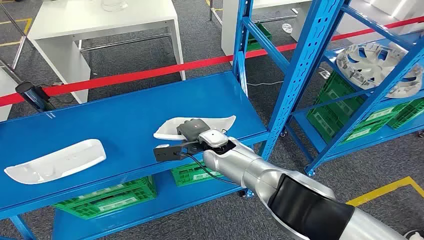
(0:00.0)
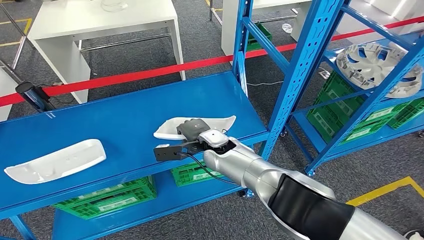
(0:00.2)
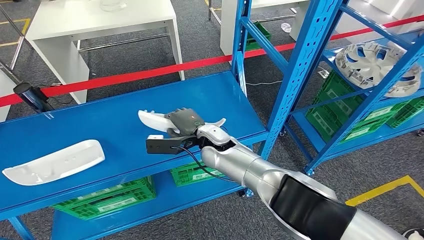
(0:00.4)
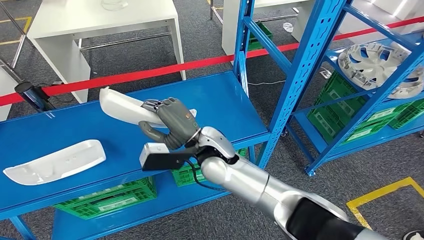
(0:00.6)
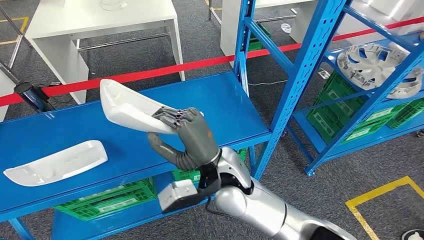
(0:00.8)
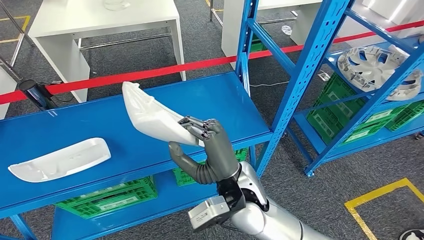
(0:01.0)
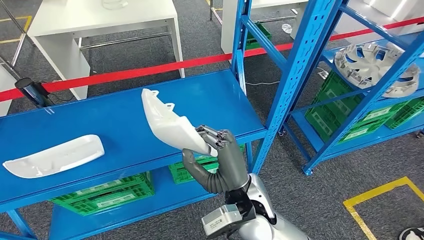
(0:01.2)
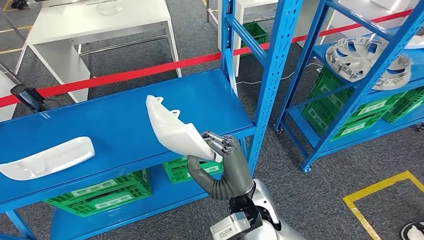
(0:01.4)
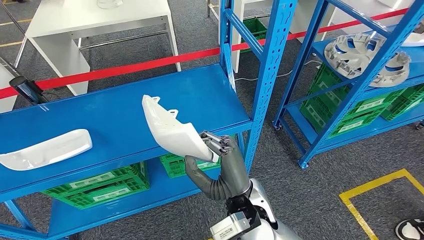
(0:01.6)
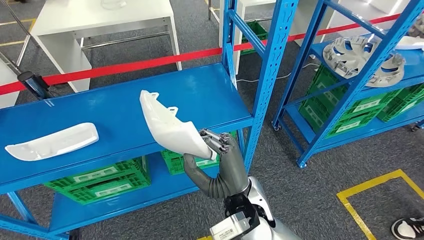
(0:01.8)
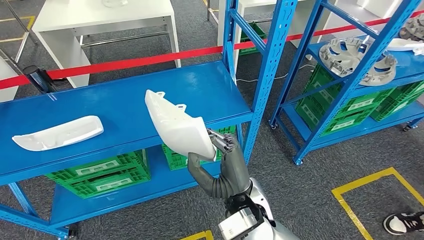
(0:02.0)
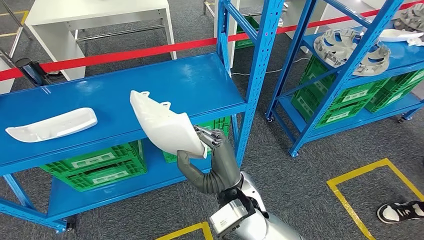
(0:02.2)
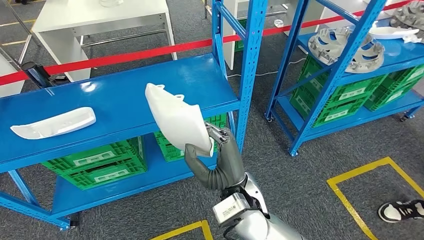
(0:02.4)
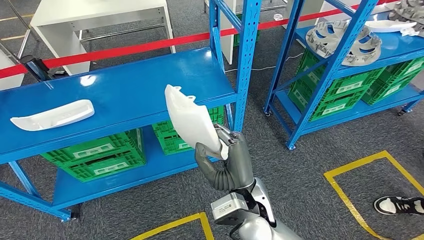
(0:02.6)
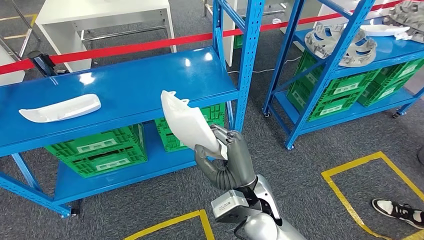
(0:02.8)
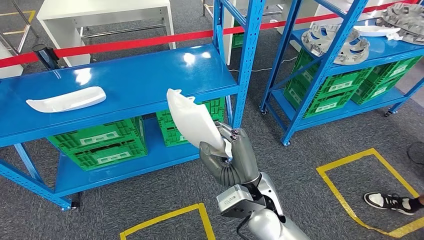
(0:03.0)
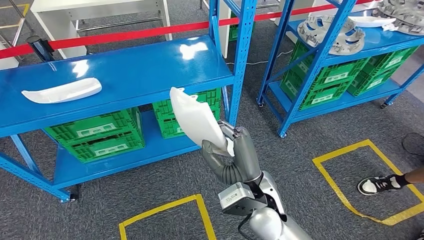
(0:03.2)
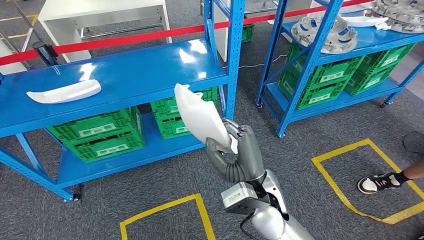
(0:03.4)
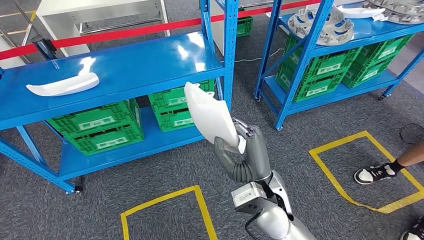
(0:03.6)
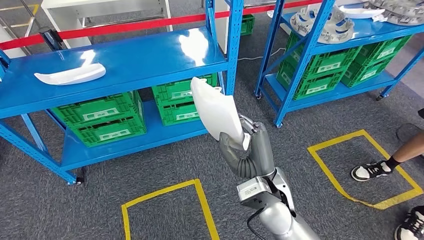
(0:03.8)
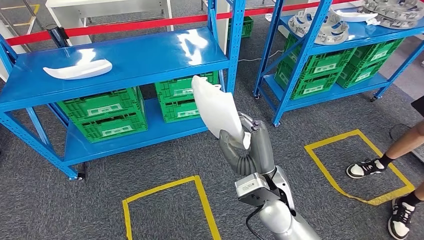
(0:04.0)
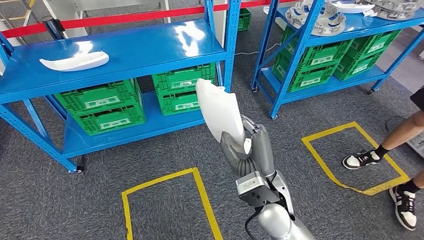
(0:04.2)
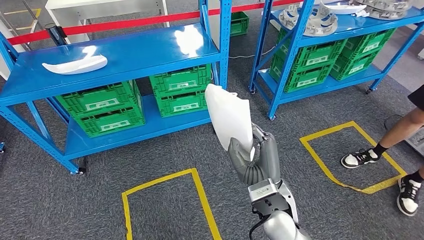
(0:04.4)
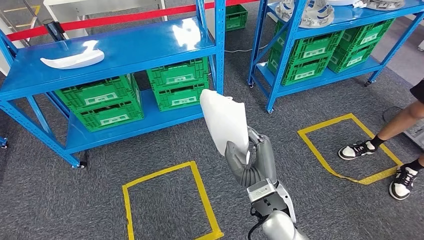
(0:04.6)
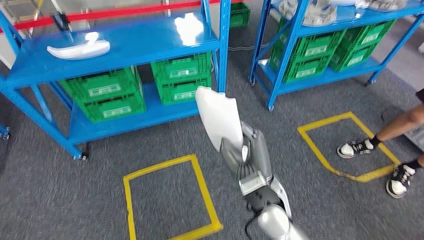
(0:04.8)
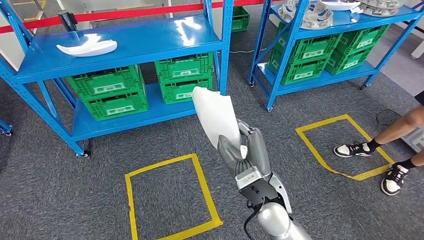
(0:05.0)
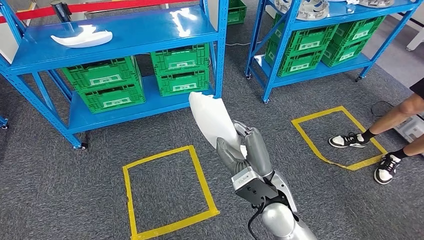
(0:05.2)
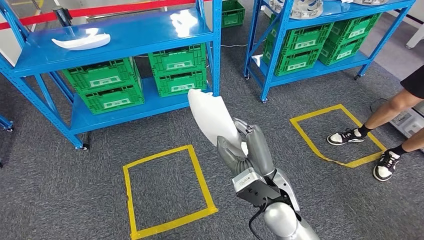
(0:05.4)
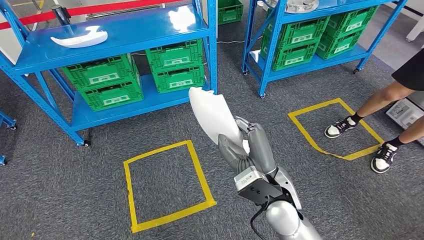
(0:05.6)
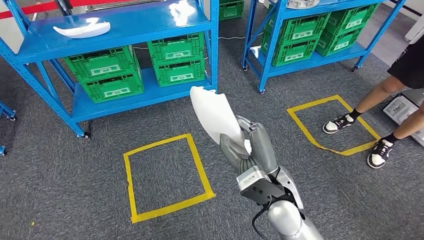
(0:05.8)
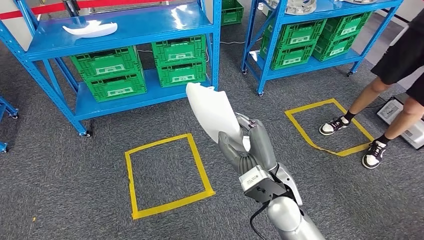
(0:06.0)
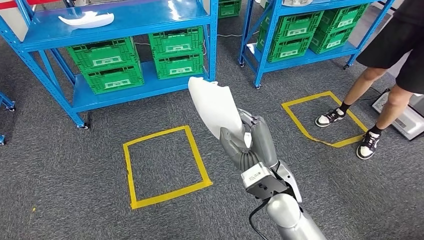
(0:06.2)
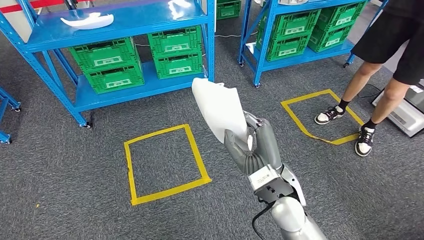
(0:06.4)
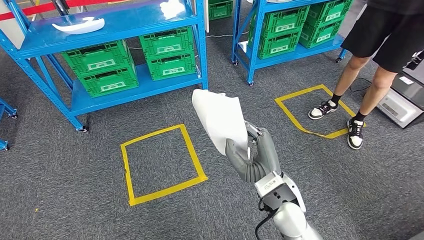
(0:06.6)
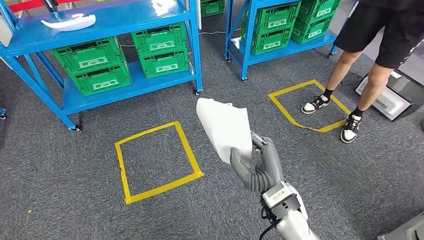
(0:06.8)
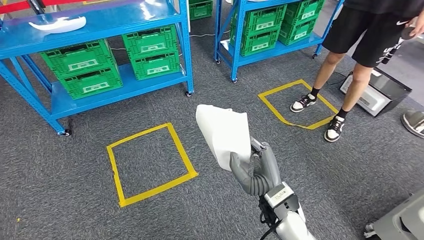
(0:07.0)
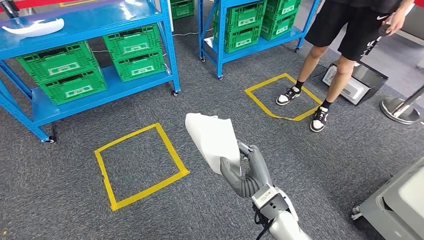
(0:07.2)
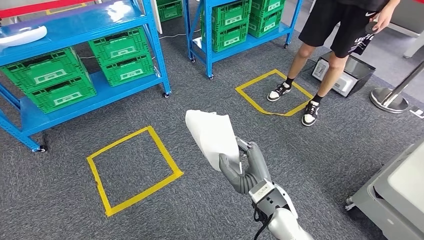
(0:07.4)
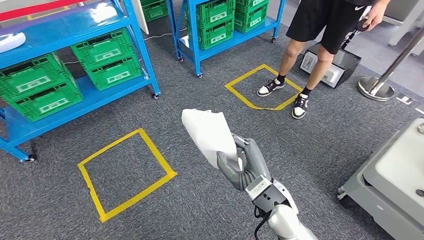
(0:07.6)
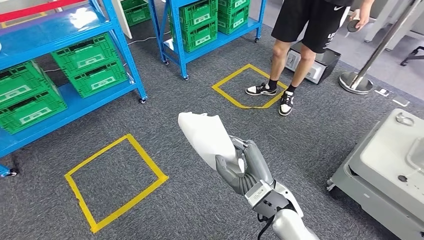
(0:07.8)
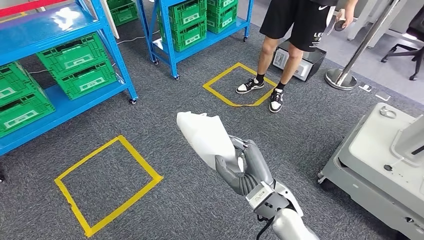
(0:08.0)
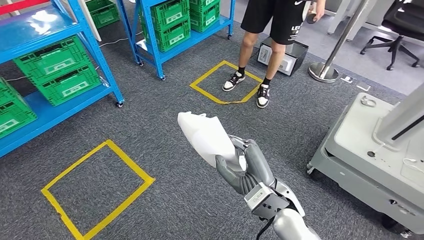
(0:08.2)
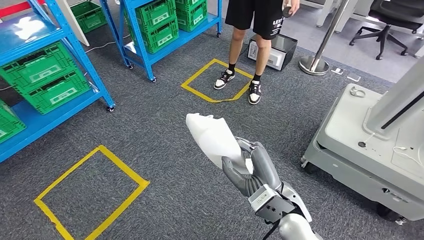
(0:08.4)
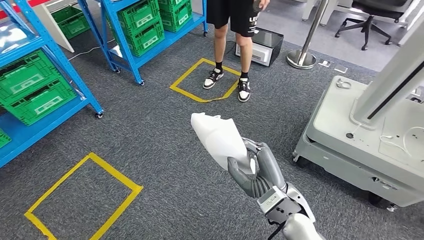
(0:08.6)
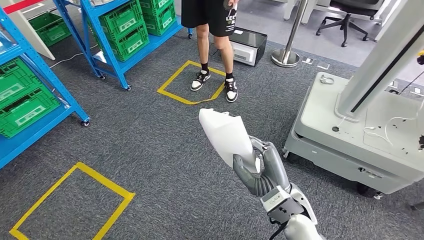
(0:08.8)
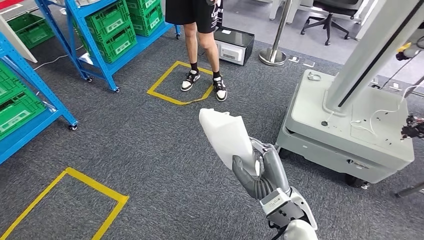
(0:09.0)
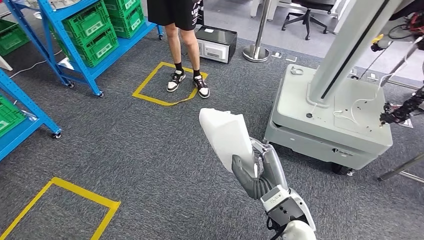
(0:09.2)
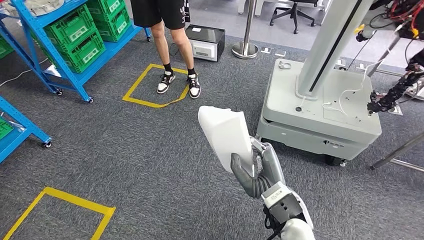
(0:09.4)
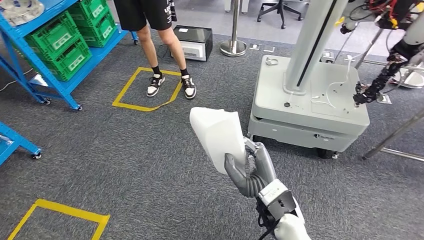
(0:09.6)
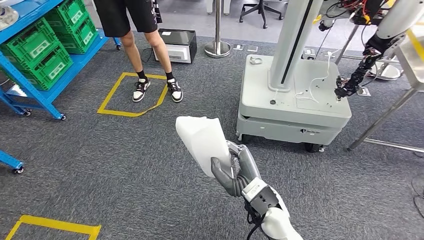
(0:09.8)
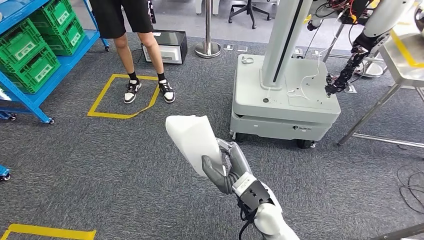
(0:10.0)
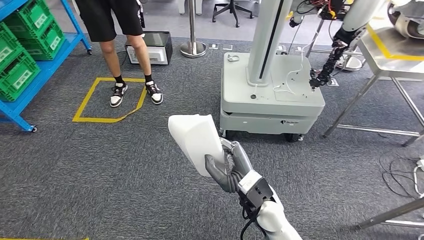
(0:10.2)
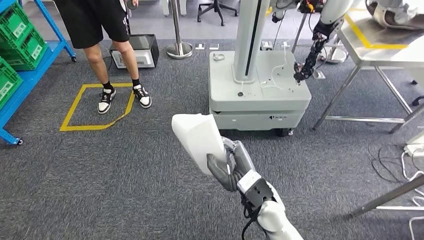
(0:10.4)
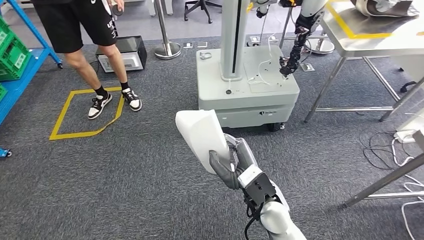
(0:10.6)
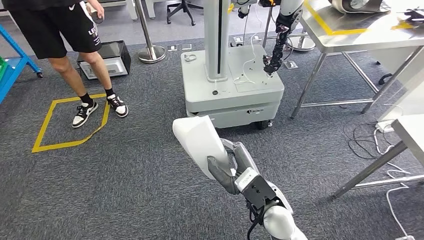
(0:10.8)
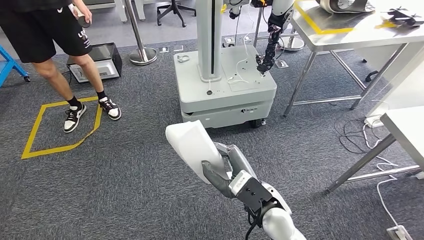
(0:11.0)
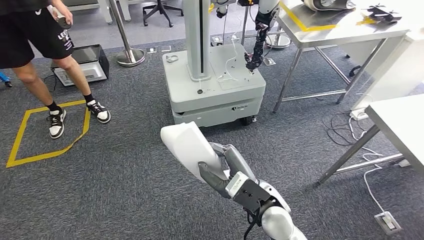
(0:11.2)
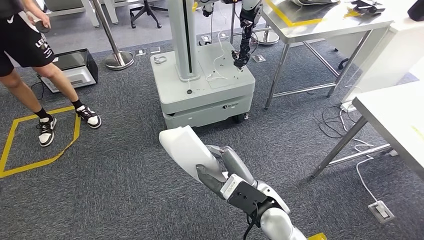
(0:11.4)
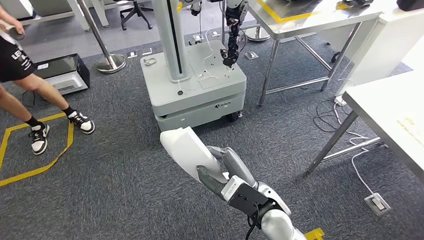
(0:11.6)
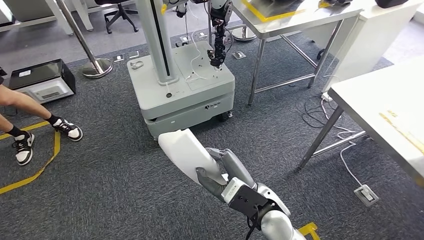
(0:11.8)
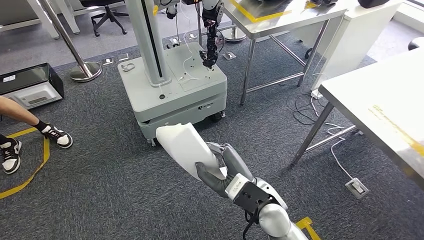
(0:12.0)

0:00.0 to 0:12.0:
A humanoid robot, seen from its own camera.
Step, 0:00.0 to 0:06.0: Pick up the small parts from the shelf.

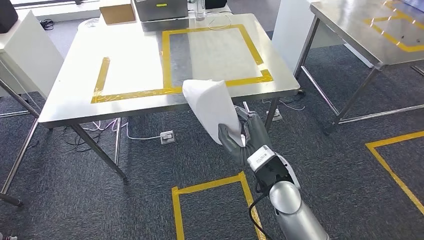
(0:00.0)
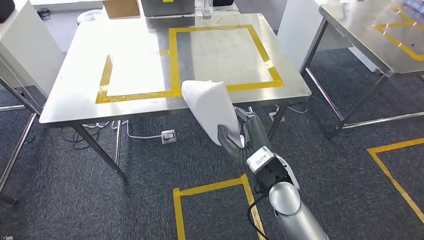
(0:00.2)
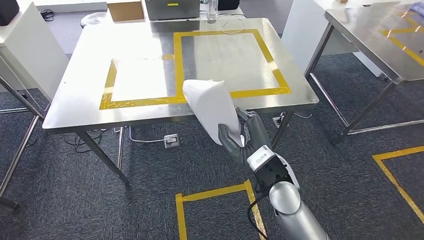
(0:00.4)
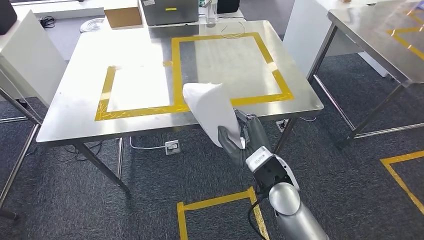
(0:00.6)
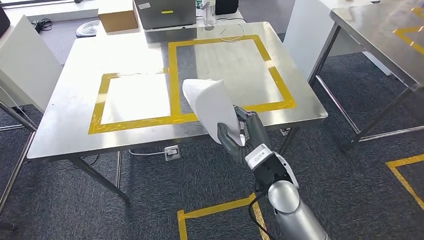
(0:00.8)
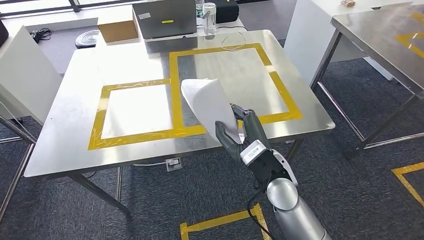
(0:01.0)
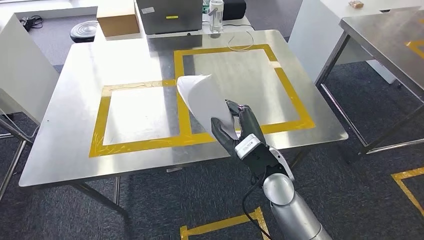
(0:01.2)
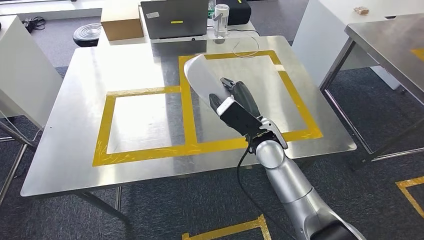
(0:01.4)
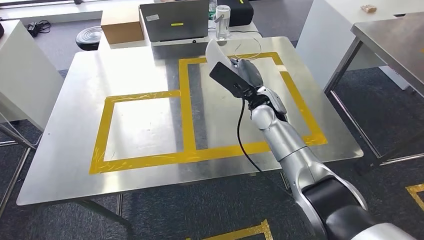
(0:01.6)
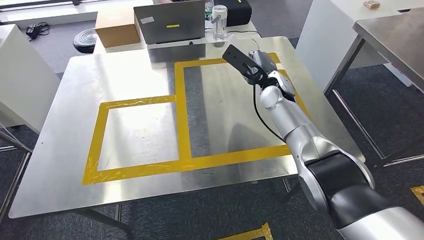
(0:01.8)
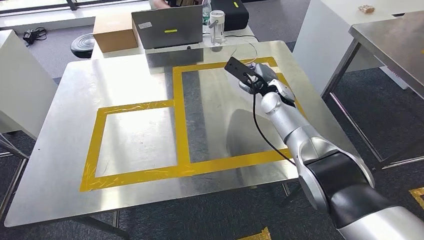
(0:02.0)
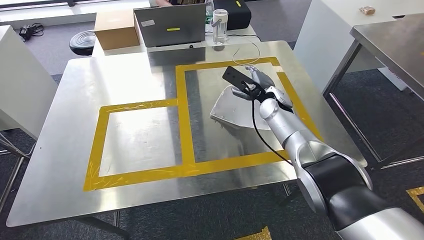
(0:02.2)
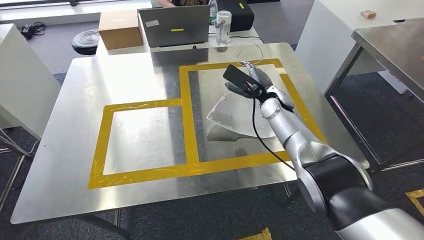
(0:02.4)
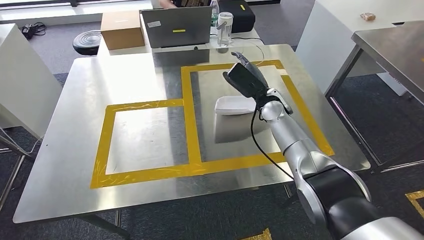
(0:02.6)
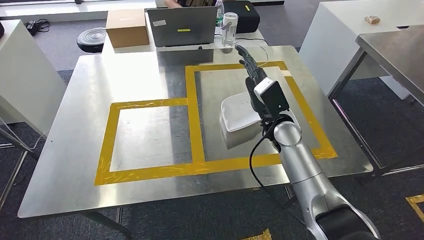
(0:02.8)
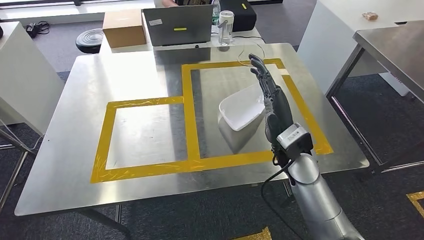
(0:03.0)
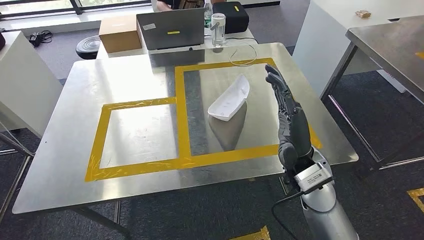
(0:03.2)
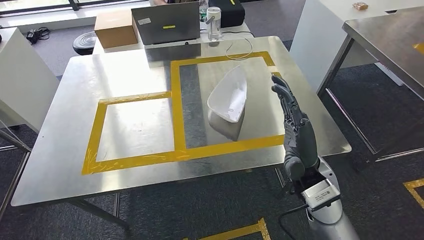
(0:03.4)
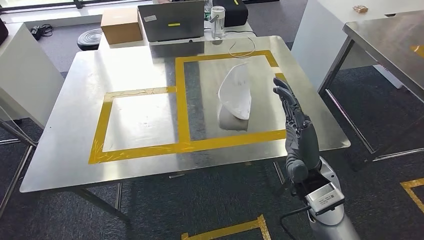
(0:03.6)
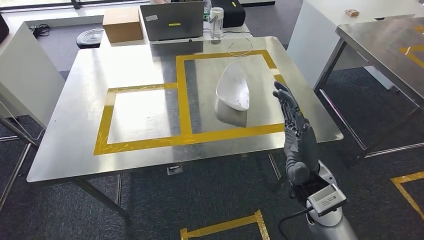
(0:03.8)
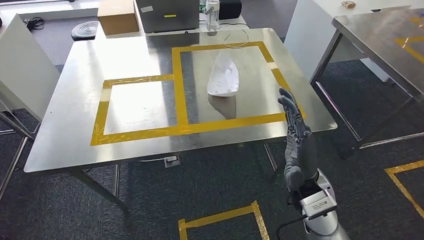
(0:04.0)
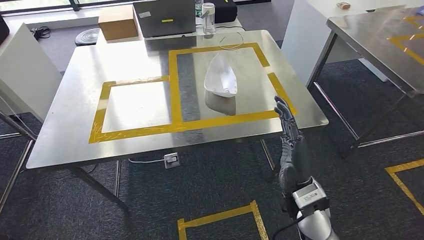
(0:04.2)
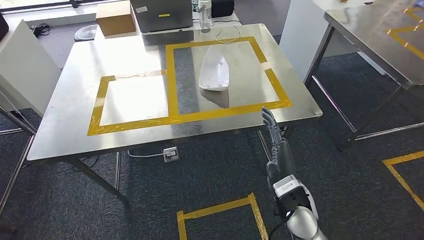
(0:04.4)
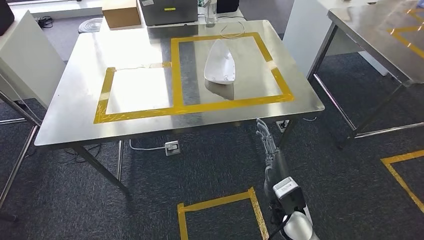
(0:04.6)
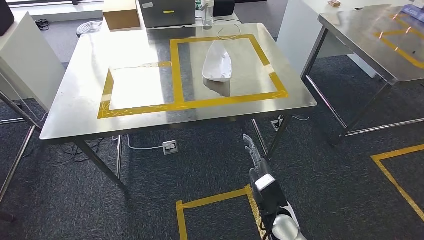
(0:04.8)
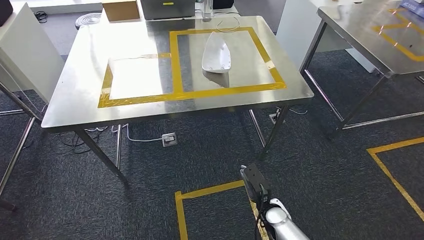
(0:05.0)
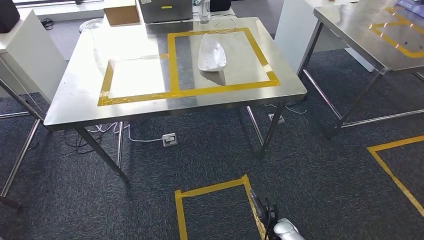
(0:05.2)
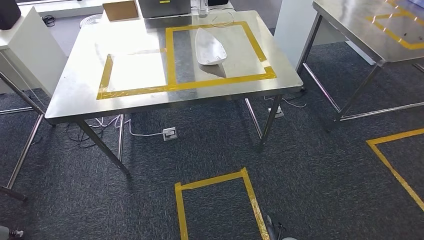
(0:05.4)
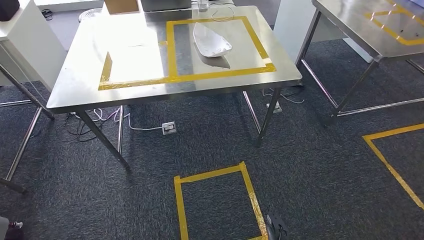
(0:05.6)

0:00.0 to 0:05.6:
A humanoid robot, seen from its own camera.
Step, 0:01.6 to 0:04.0: Insert the small parts into the corresponding holes on the workbench.
